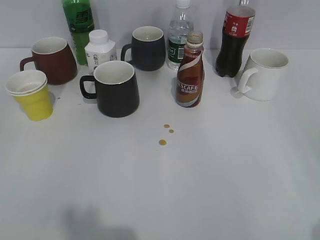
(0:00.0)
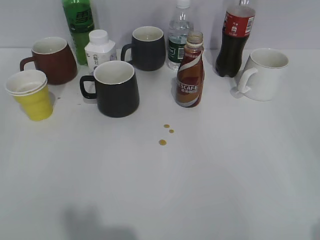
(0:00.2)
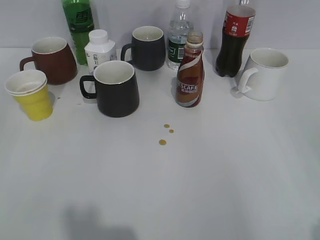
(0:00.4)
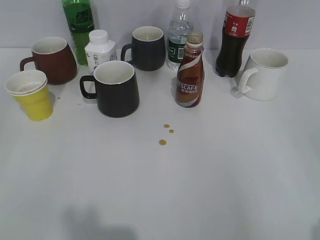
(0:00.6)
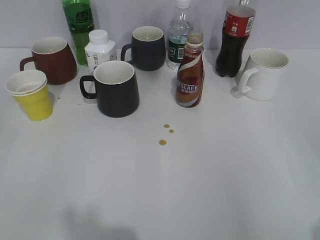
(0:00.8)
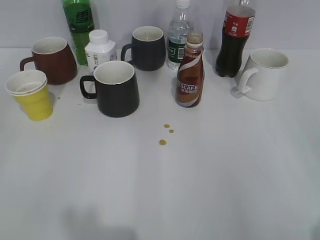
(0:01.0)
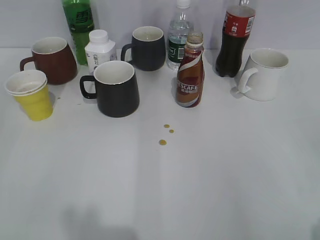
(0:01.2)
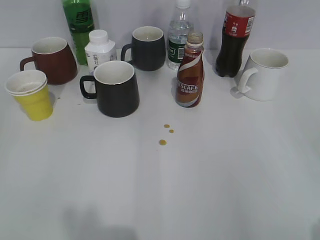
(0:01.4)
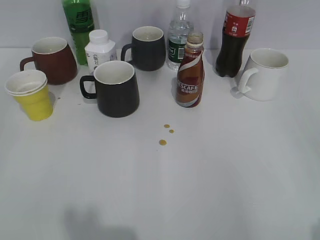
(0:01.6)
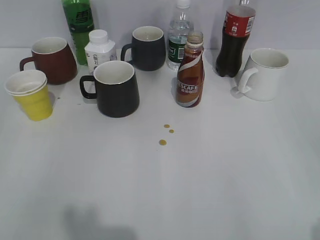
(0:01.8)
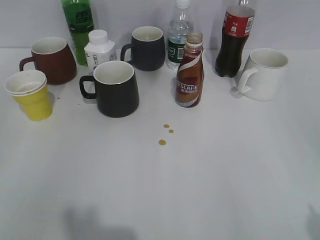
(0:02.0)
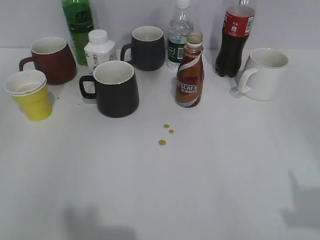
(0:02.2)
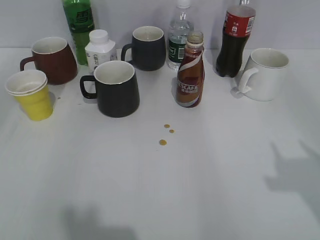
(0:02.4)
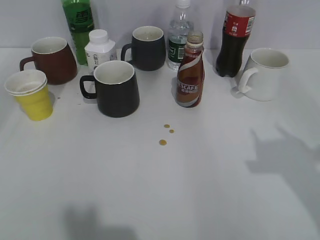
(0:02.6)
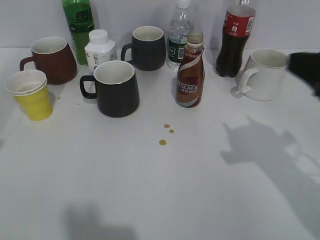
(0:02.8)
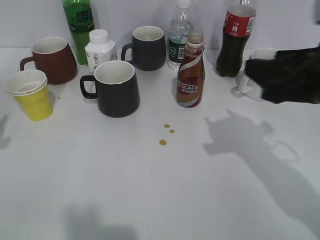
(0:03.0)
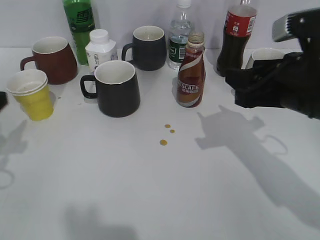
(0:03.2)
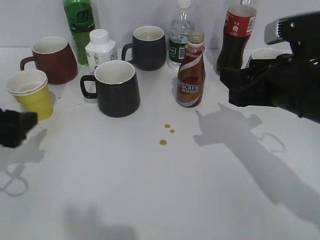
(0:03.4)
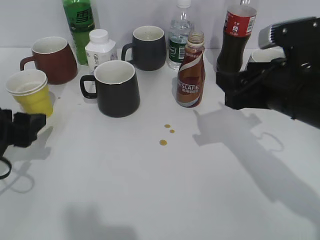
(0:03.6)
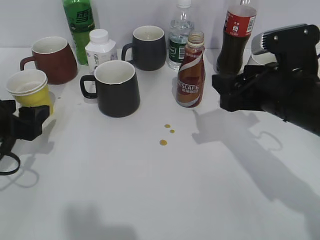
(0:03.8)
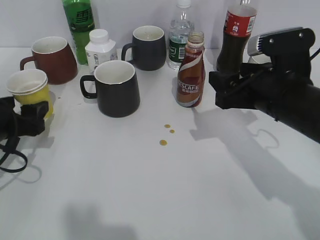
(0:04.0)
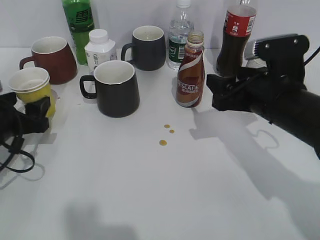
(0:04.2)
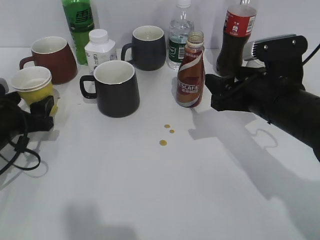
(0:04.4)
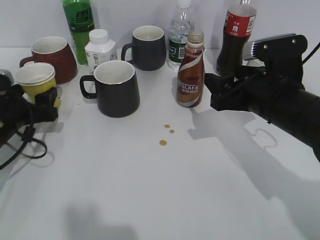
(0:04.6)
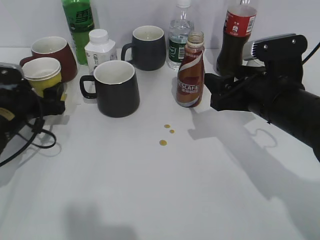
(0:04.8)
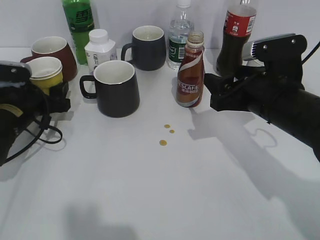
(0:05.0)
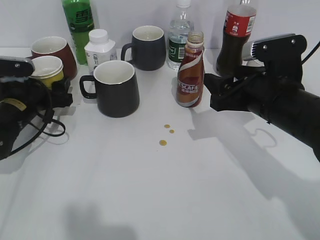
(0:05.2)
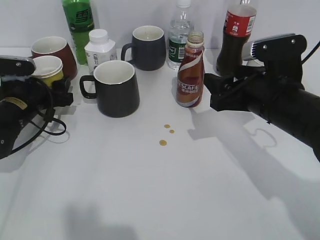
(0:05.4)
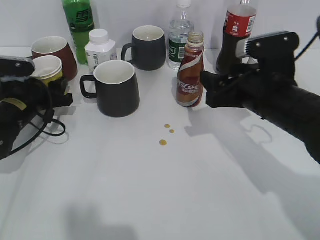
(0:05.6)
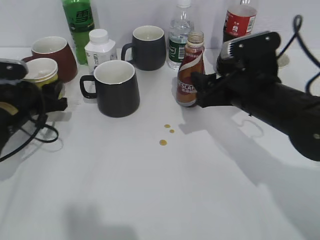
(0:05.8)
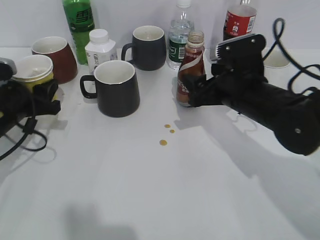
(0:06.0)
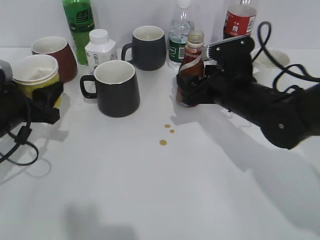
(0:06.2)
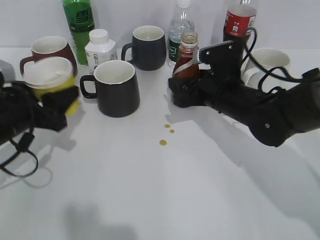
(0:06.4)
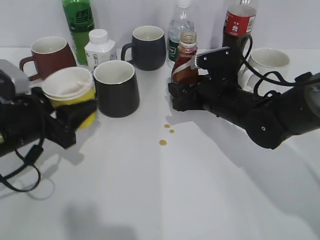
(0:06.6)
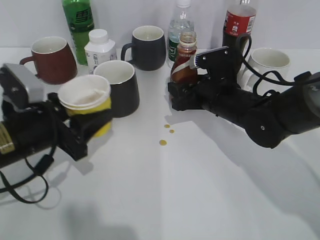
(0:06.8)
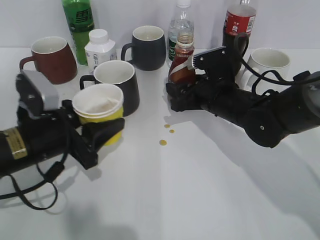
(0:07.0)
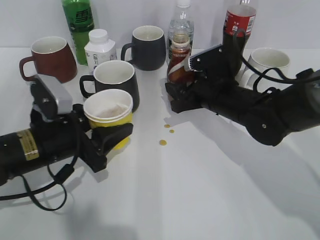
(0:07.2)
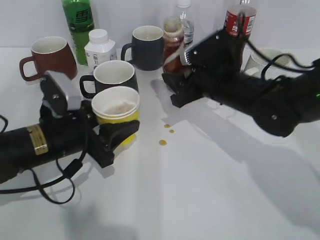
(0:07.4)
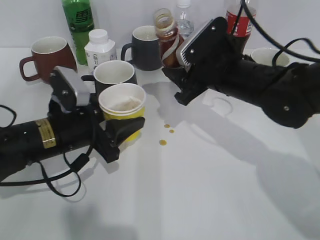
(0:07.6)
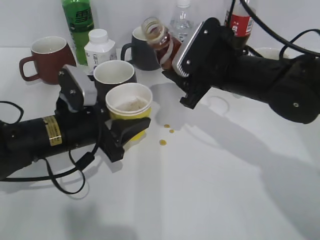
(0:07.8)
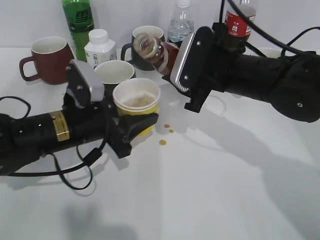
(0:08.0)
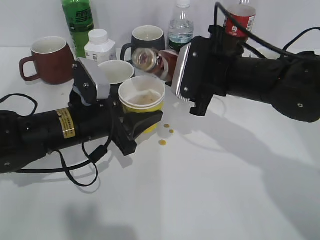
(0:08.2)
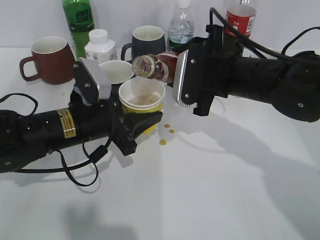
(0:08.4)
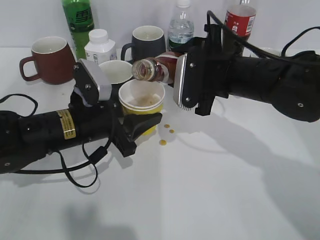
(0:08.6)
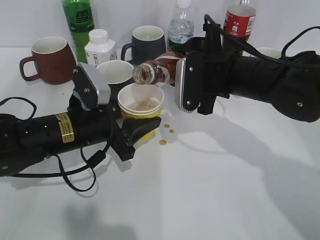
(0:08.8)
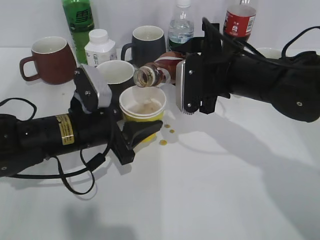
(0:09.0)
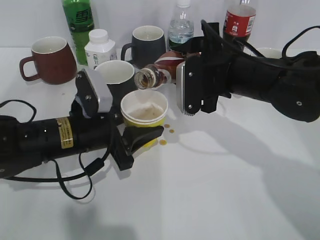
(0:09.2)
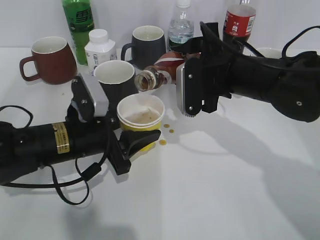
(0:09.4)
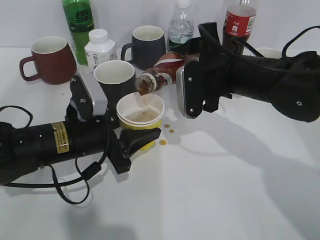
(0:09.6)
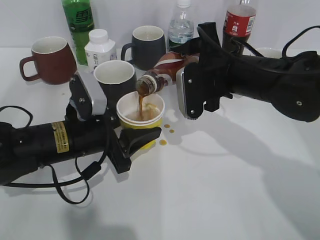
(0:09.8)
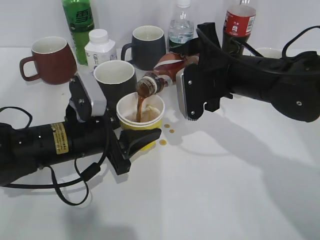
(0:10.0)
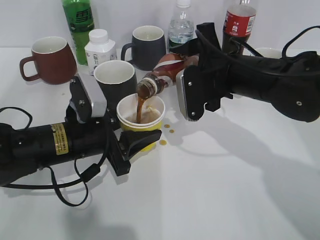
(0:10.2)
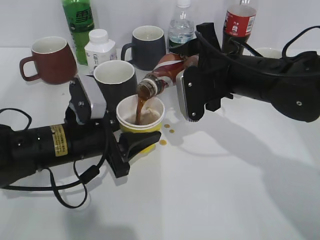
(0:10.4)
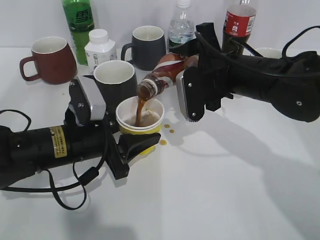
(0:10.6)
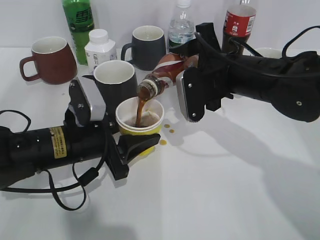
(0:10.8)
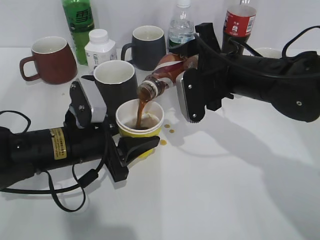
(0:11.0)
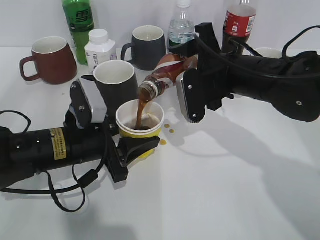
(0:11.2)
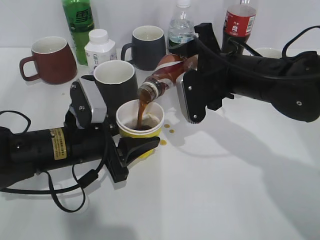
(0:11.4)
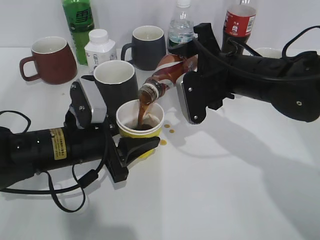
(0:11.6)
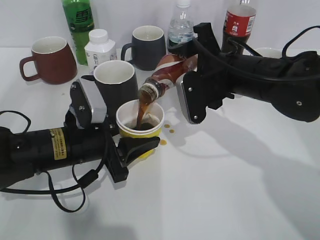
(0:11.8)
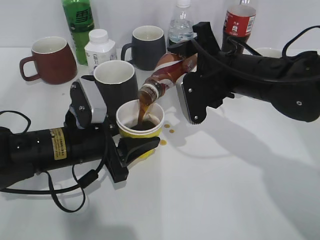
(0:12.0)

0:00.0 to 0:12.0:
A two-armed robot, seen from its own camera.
Step, 0:01.8 to 0:05.4: Grasp the yellow paper cup with left gripper.
Step, 0:05.6 to 0:07.0: Grasp the bottle with coffee with right gripper.
0:01.6 to 0:03.0: The right gripper moves forward and to the left, approximately 25 cm.
0:03.0 to 0:04.4: The left gripper is displaced downward, forward and to the right by approximately 15 cm. The right gripper goes about 10 cm downward and forward, and opens up.
0:04.4 to 0:06.0: The right gripper changes place by about 5 cm. Meanwhile the left gripper closes its fingers.
0:06.0 to 0:07.6: The right gripper closes. Meanwhile the left gripper travels to the right by approximately 10 cm.
0:09.0 to 0:12.0: There are only small adjustments of the grippers.

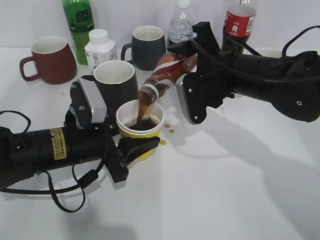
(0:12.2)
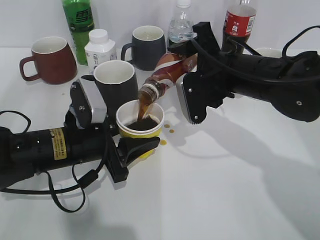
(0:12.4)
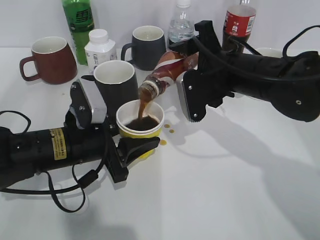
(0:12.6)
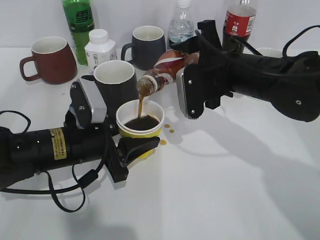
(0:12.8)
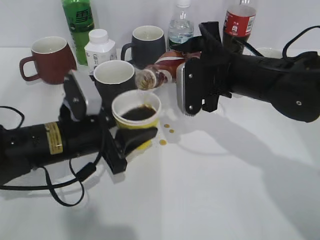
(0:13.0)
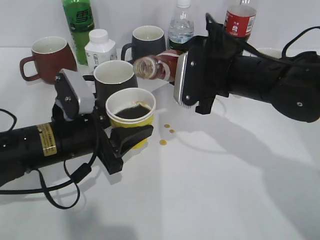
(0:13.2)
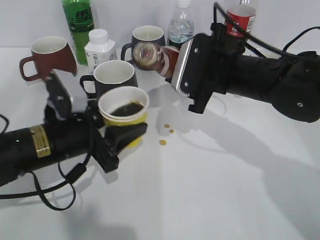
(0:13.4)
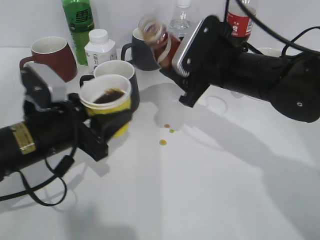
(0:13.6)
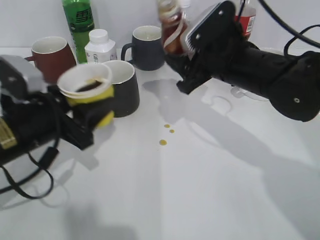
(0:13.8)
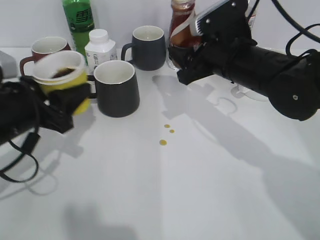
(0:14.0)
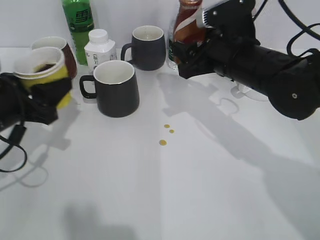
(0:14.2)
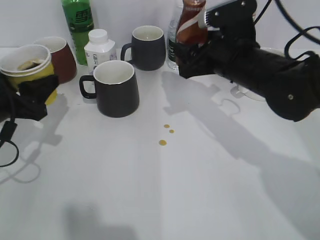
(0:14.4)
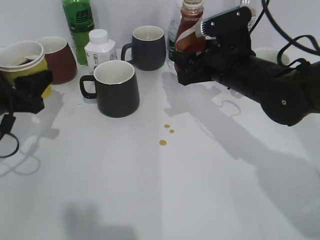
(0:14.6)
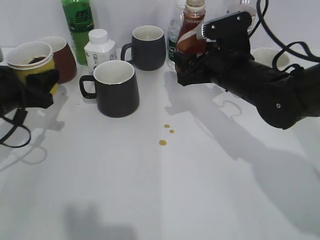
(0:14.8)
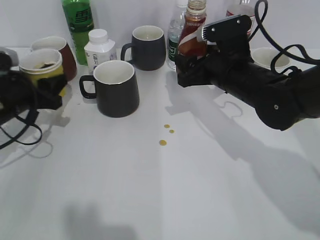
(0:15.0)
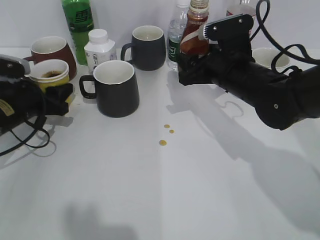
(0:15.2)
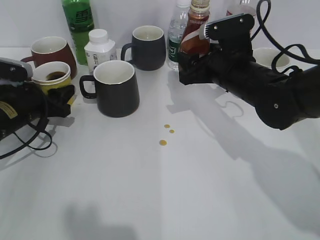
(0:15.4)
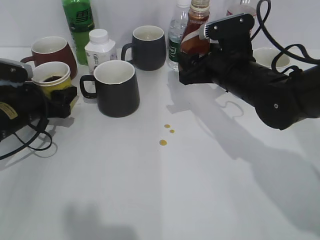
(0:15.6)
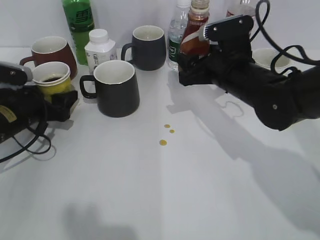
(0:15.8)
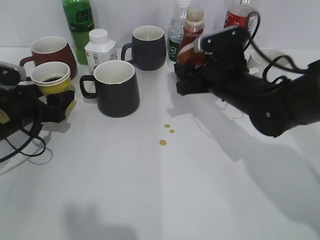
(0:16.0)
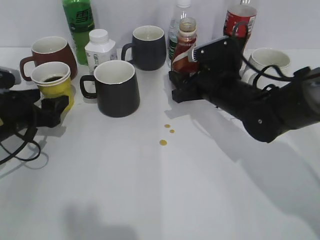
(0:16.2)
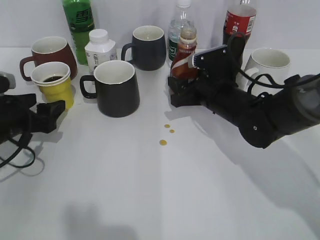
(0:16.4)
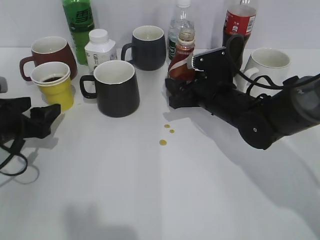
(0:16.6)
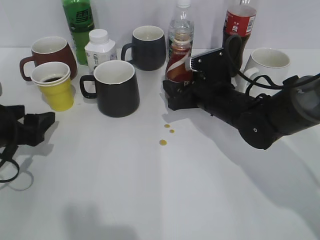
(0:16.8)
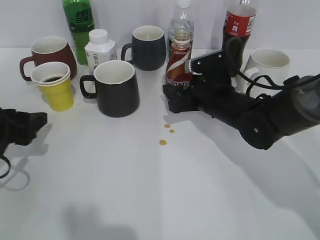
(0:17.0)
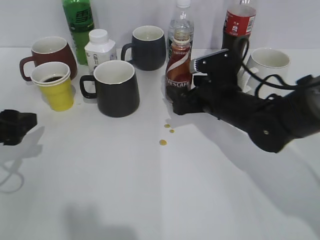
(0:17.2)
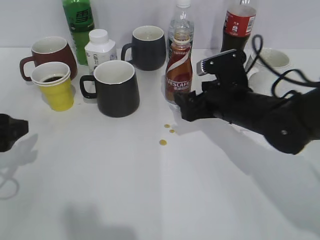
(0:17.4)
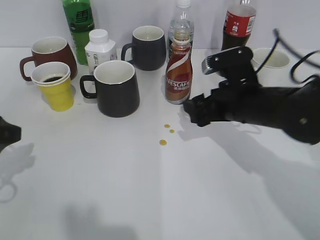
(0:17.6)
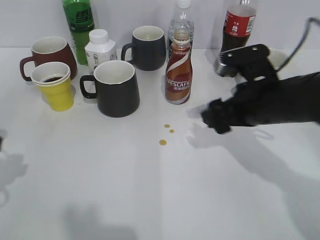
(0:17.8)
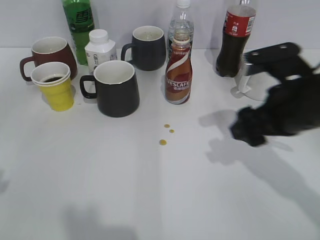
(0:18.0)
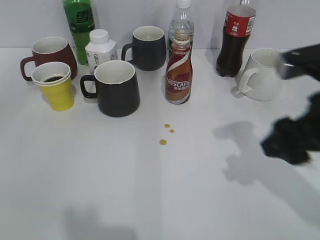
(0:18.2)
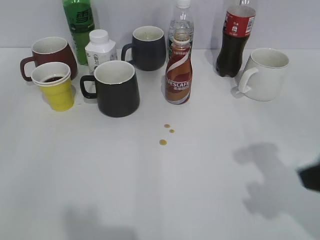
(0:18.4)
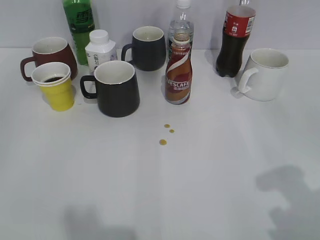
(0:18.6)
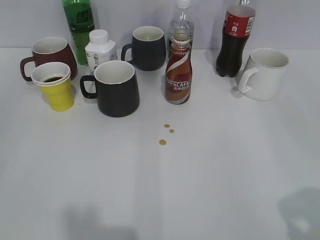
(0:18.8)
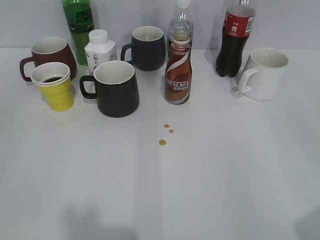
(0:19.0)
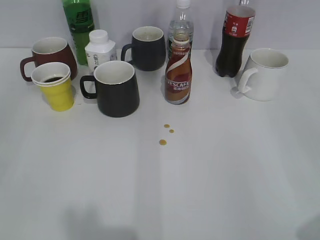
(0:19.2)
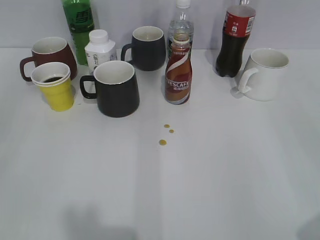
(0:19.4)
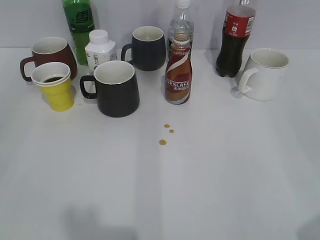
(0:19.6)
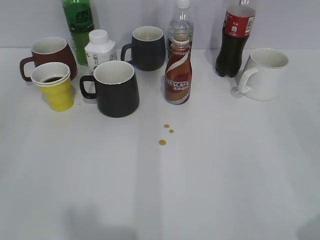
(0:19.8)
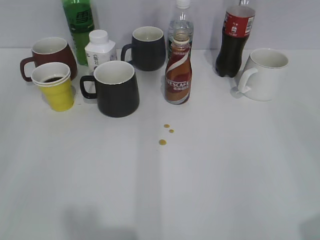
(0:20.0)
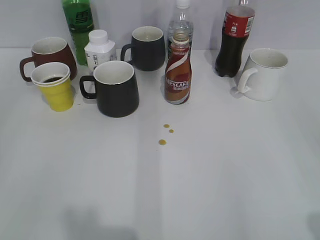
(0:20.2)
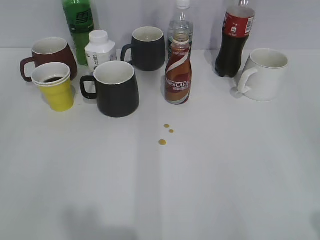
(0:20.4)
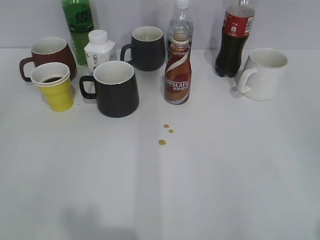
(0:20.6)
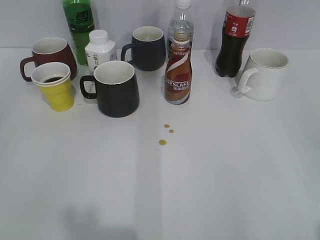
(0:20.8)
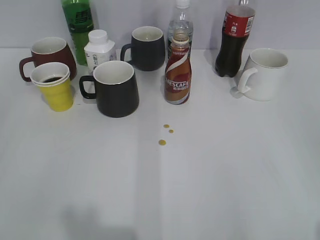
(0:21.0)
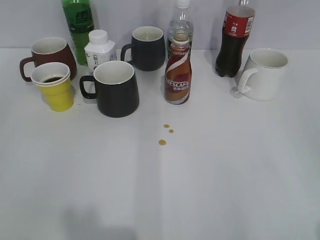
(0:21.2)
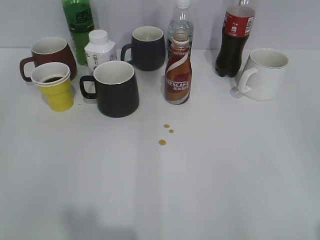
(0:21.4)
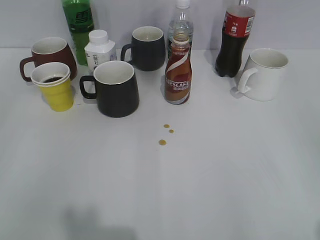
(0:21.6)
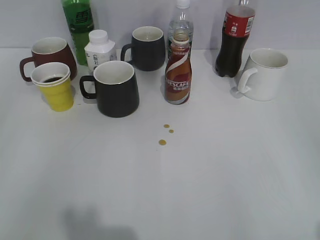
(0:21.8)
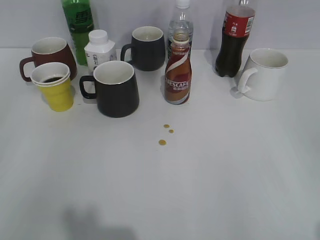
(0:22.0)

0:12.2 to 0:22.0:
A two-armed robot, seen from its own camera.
Step, 0:13.4 to 0:15.8: Place the yellow paper cup on the table with left gripper.
Step, 0:16.0 to 0:17.2: Place the coffee bottle on the table with right gripper.
0:13.6 to 0:15.0: The left gripper shifts about 10 cm to the left and forward.
0:15.0 to 0:16.4: The right gripper is displaced downward by approximately 5 cm. Meanwhile the left gripper opens up.
0:16.4 to 0:17.8: The left gripper travels upward and backward by roughly 15 cm. The right gripper travels backward and upward by roughly 10 cm, and opens up.
0:17.8 to 0:19.2: The right gripper is displaced backward and to the right by some 30 cm. Meanwhile the left gripper shifts approximately 15 cm backward.
0:20.6 to 0:22.0: Both grippers stay put.
